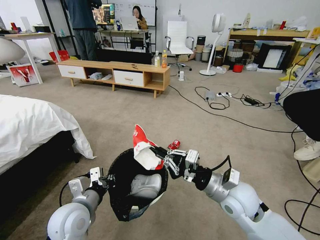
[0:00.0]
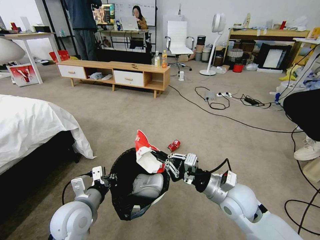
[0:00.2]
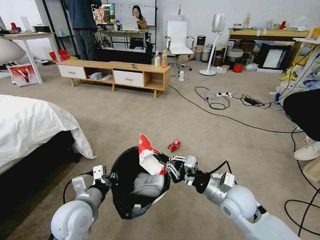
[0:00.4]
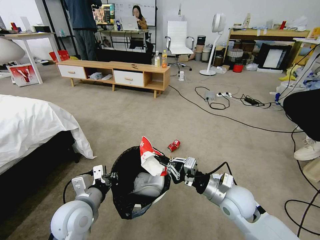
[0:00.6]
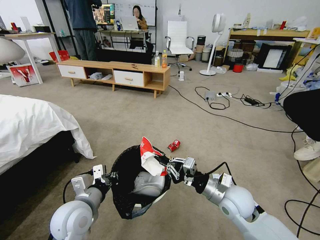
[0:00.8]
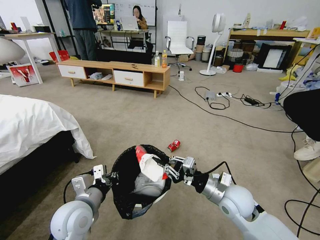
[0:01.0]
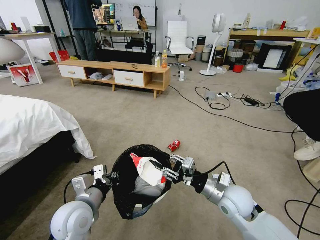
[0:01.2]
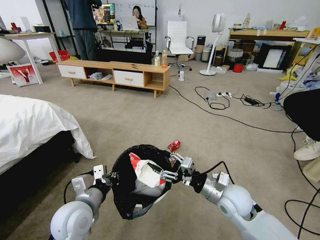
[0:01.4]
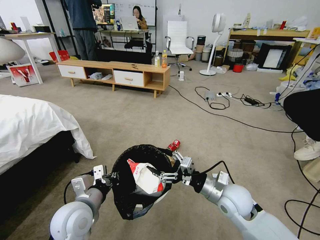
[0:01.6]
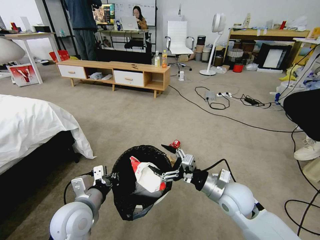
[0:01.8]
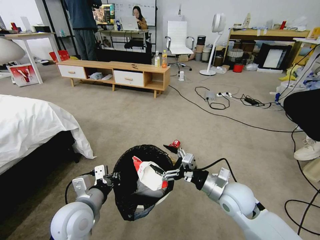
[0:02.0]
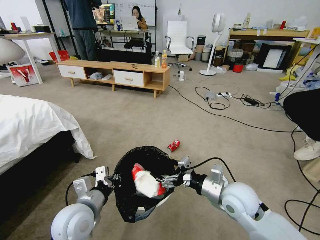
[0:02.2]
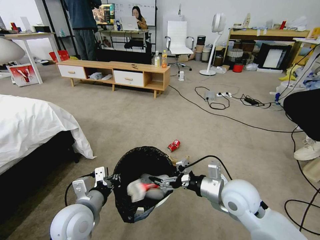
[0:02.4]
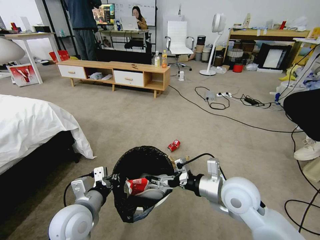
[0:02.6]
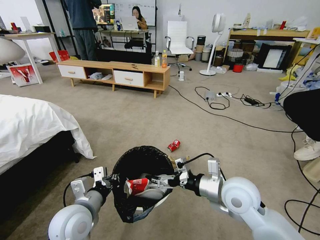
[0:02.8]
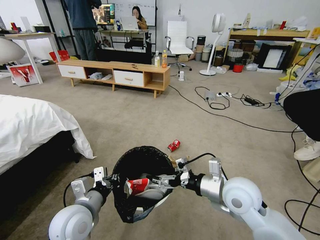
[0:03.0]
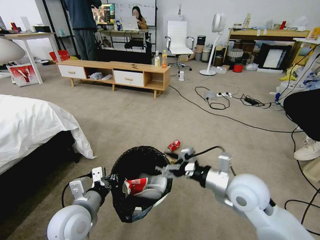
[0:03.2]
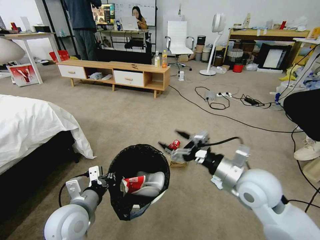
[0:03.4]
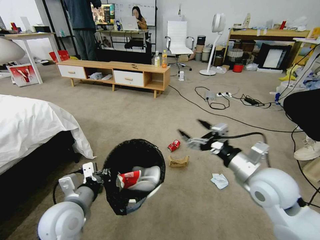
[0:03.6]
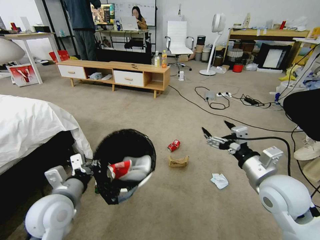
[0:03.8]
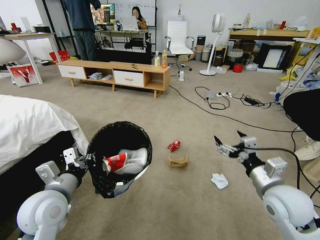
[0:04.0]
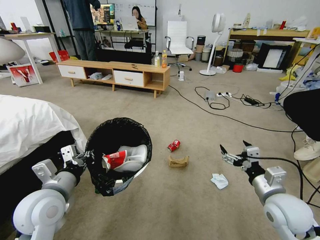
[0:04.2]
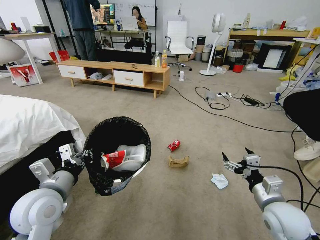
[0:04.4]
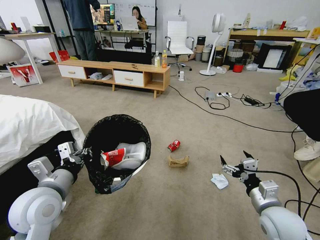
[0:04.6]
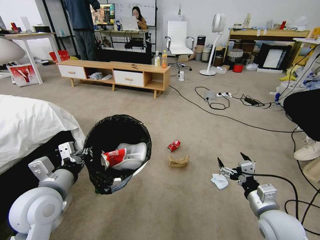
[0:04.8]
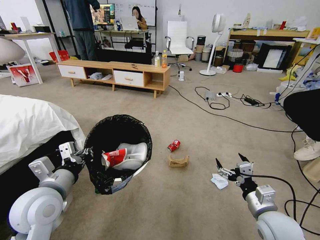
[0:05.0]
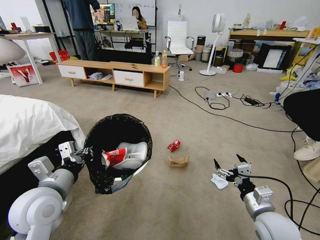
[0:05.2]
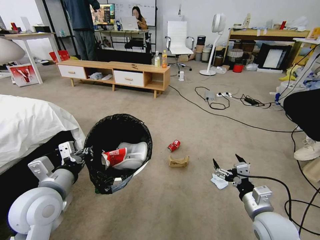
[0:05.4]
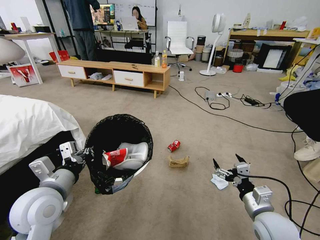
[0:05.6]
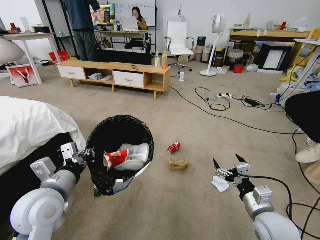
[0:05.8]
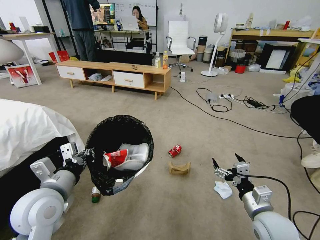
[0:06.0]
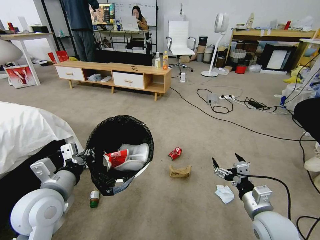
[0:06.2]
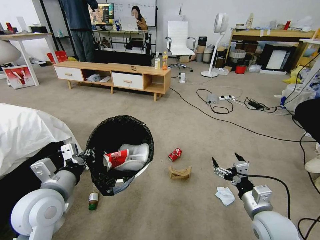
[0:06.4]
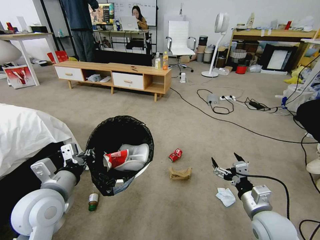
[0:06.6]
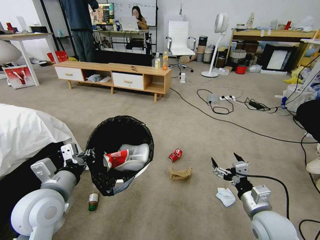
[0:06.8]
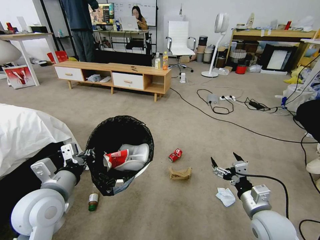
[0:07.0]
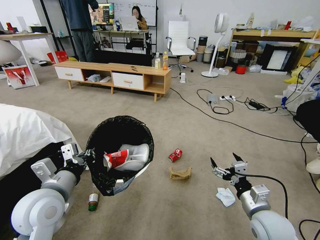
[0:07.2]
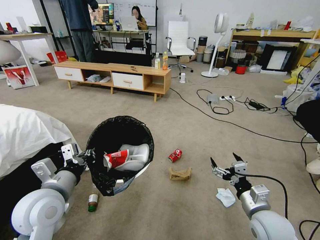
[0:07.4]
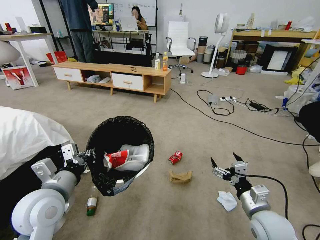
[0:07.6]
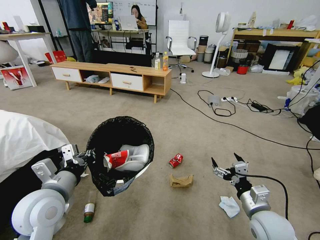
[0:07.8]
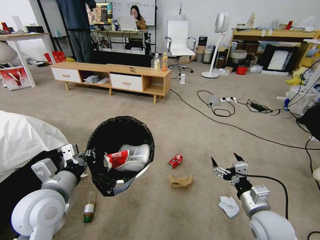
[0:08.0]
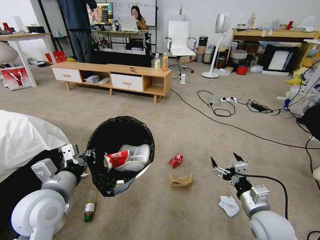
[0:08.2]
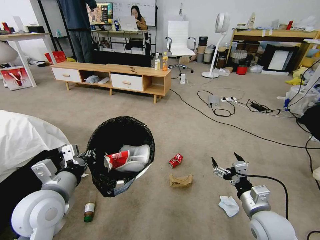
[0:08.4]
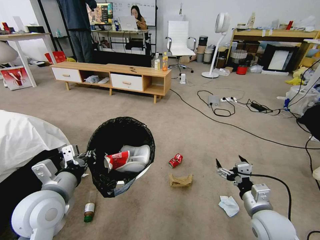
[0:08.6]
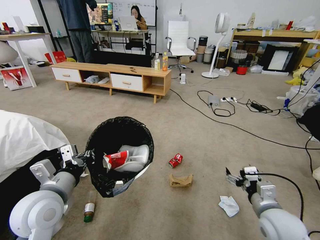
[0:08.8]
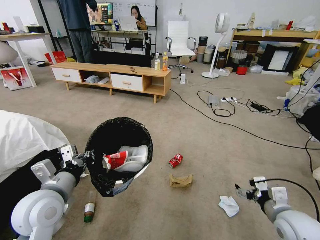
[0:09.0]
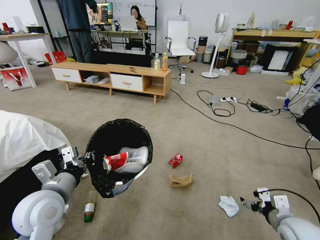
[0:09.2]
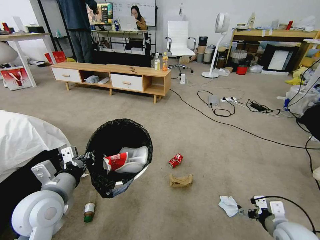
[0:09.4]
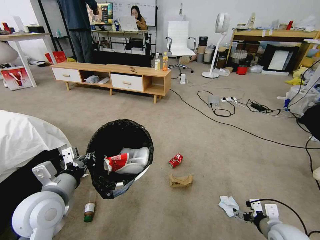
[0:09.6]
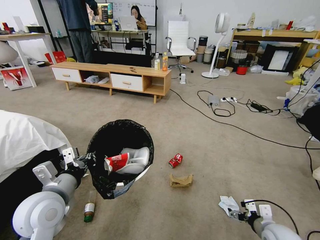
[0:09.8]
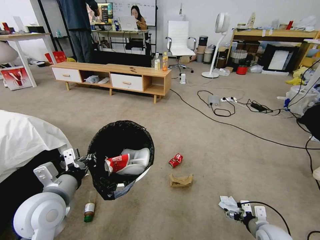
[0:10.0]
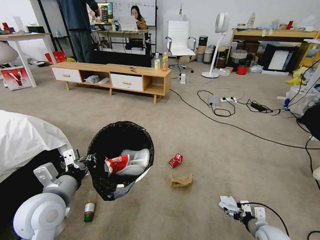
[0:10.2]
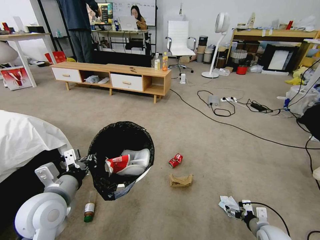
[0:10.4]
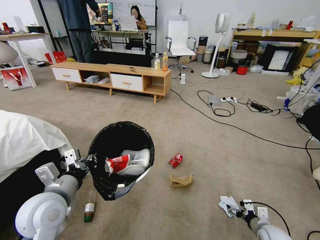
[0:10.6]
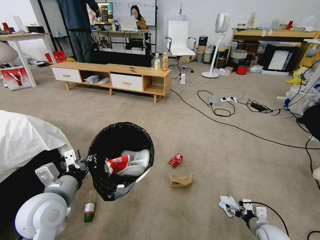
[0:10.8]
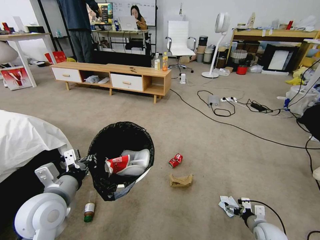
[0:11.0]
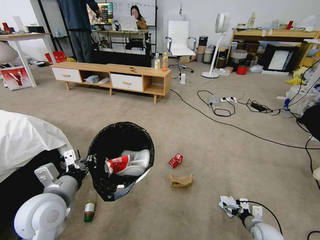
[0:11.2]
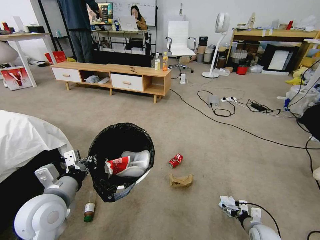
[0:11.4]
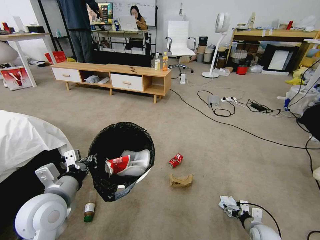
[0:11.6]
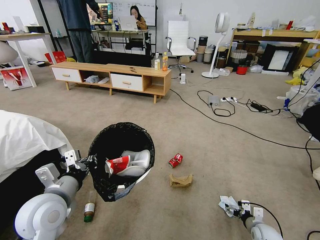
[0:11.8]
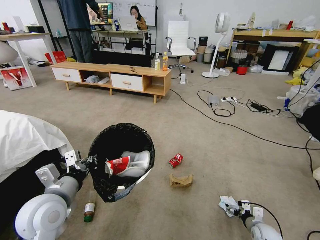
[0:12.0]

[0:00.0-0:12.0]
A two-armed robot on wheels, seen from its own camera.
Task of the whole recording: Pick up the trash bin and place the garbage on the floor into it.
0:00.0 to 0:01.6: The right gripper shifts about 5 cm downward, and opens up.
0:01.6 to 0:03.0: The right gripper goes roughly 5 cm upward.
0:03.0 to 0:04.4: The right gripper shifts approximately 15 cm to the right and downward. Meanwhile the left gripper goes some 10 cm upward and to the left.
0:07.6 to 0:09.0: The right gripper changes place by about 5 cm.
0:09.0 to 0:10.4: The right gripper travels downward by approximately 20 cm.
0:10.4 to 0:12.0: The right gripper travels downward by approximately 5 cm.

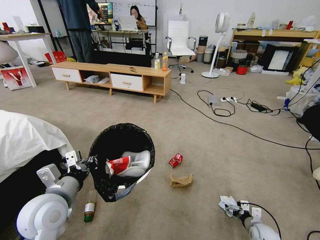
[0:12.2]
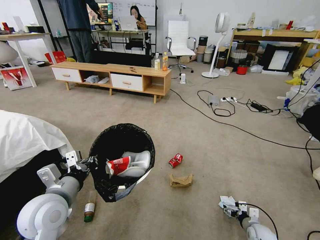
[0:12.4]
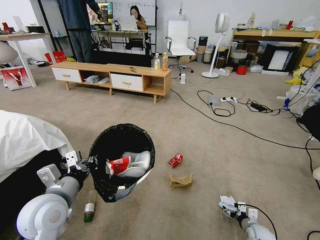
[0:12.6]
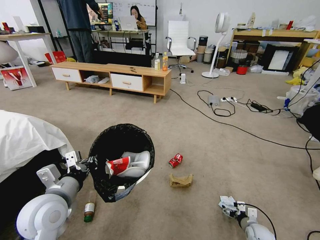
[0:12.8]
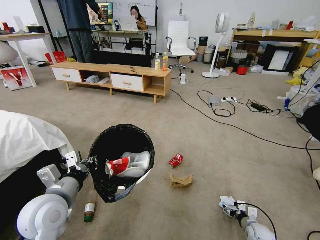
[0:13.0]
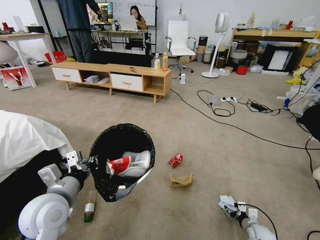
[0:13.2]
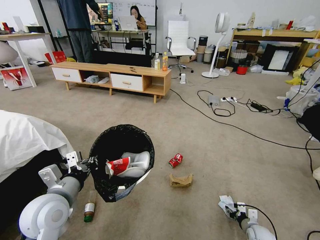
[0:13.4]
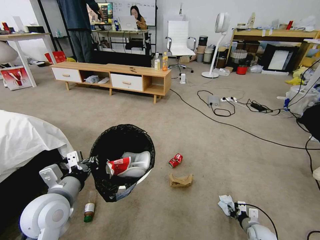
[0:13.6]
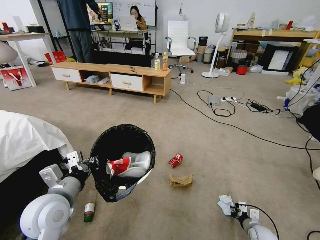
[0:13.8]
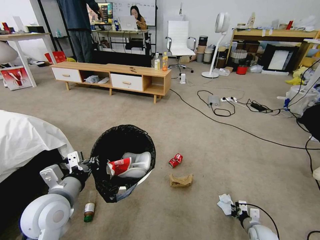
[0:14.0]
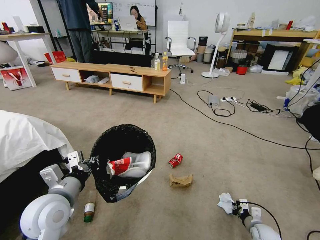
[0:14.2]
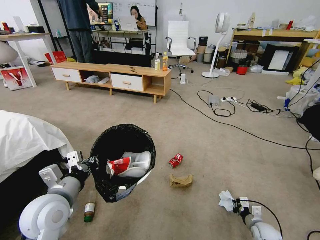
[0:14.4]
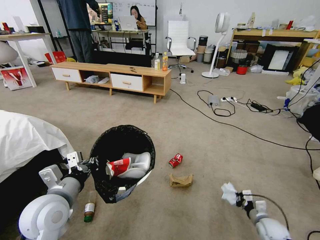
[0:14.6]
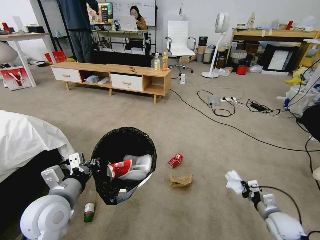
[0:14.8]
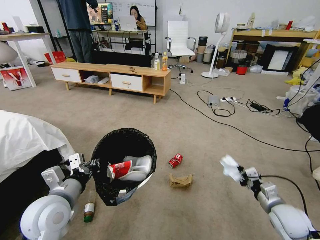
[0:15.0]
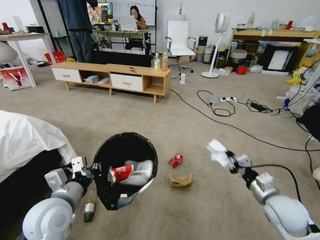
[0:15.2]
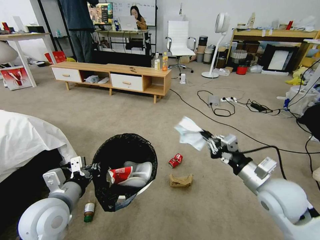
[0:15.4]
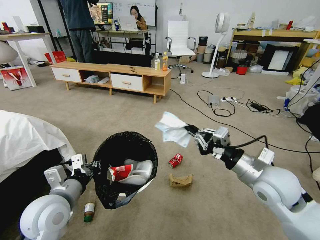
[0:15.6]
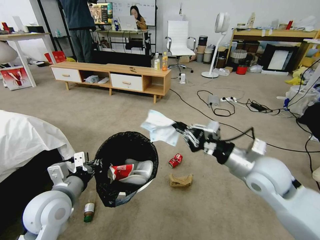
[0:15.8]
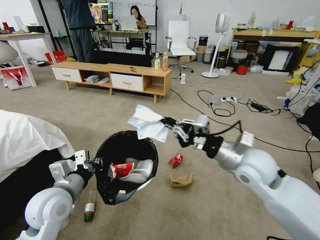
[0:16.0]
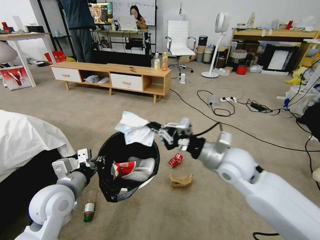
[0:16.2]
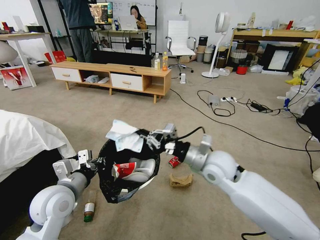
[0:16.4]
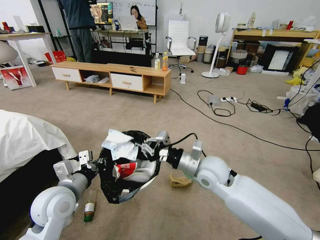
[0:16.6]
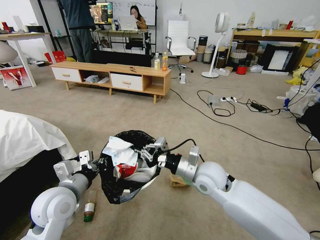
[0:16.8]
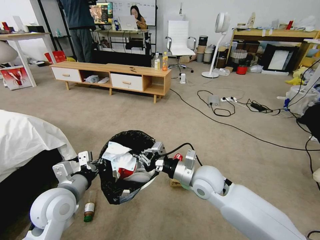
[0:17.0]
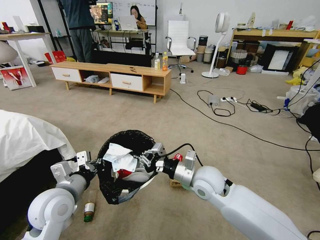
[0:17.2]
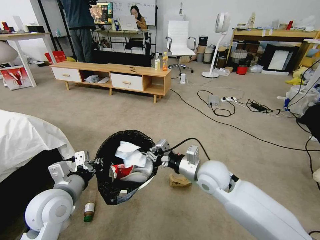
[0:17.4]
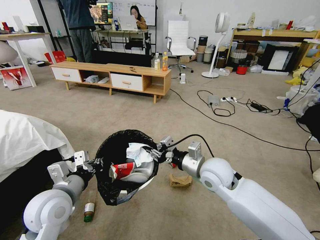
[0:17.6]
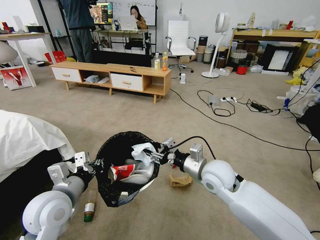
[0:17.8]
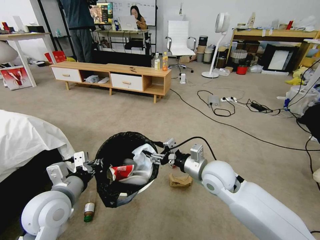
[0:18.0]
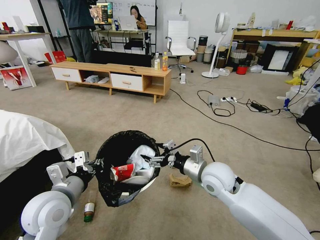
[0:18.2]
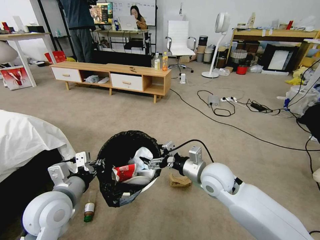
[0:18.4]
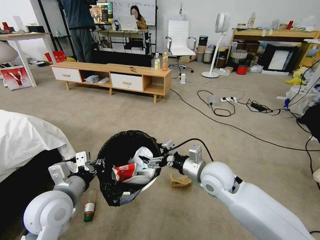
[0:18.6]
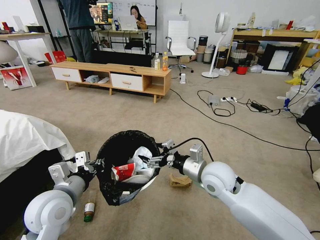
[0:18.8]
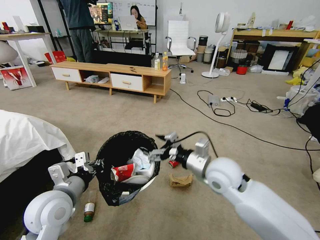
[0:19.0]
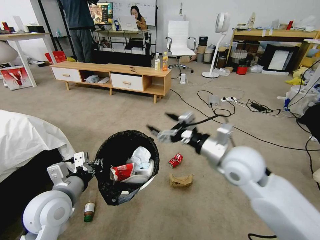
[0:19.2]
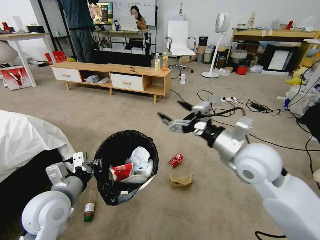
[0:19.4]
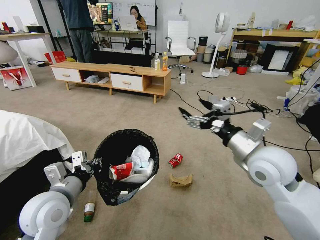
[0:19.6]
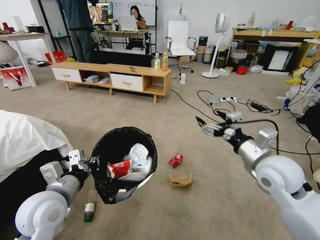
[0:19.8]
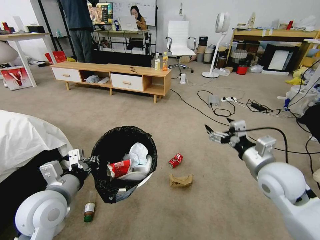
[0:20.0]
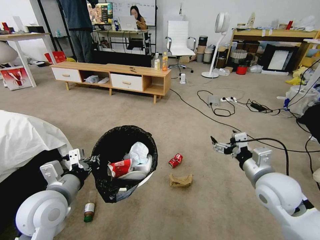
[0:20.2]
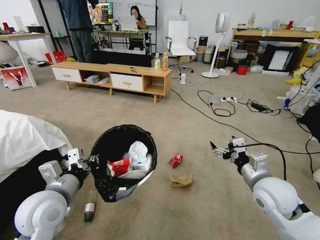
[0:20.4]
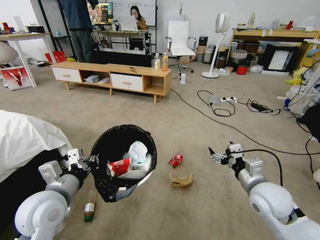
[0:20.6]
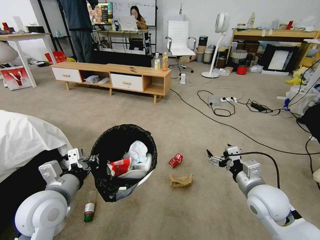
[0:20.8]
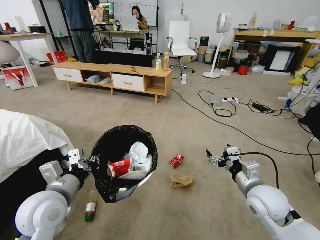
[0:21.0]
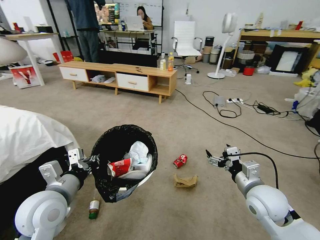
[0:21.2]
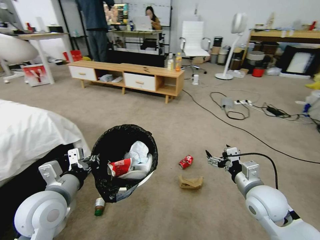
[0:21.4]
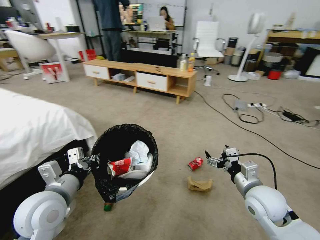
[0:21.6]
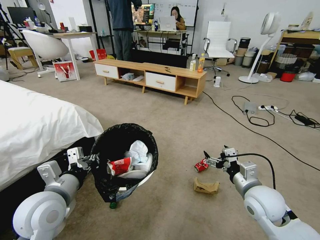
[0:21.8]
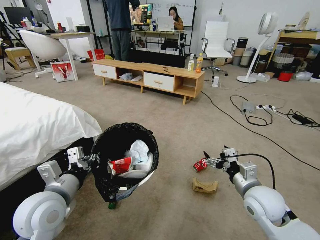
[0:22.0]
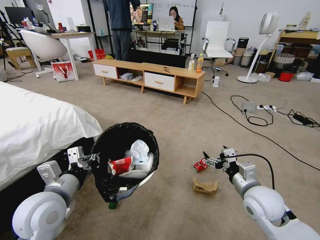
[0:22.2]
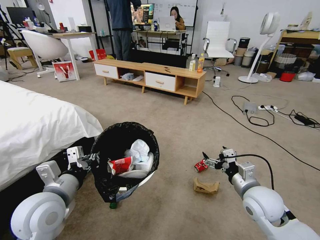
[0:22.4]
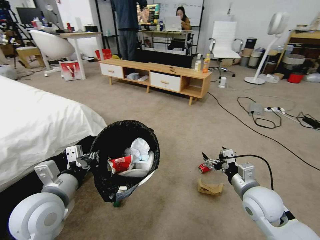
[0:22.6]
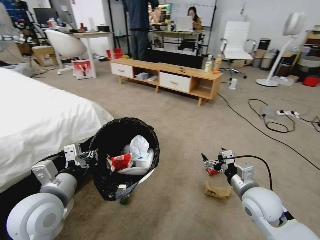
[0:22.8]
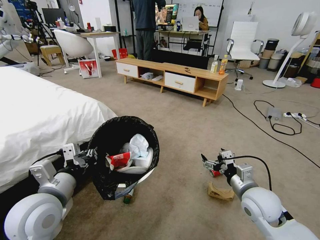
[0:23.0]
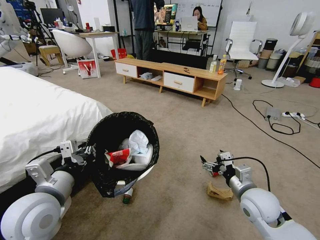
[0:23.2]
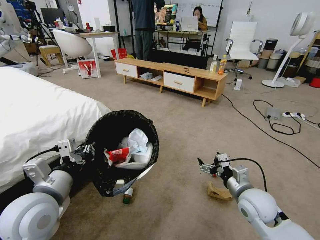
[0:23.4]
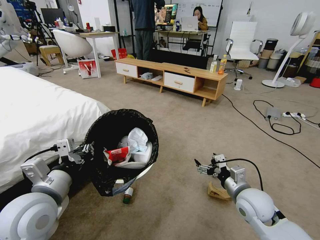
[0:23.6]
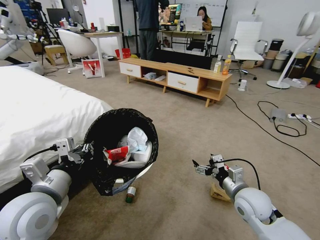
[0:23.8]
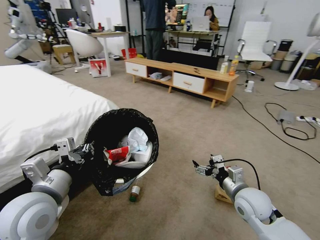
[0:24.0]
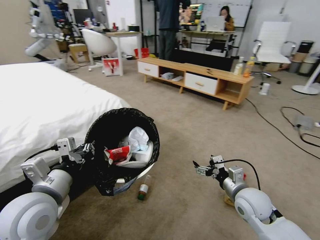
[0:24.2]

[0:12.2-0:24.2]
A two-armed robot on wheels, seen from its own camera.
Task of the whole recording: Pick up the trash bin and place the garbage on the floor into it.
0:12.2 to 0:13.8: The right gripper closes.
0:13.8 to 0:15.2: The right gripper heads upward, covering about 30 cm.
0:15.2 to 0:16.6: The right gripper moves to the left and forward, approximately 20 cm.
0:16.6 to 0:18.2: The right gripper opens up.
0:18.2 to 0:19.8: The right gripper heads to the right and upward, covering about 15 cm.
0:19.8 to 0:21.2: The right gripper travels downward by about 10 cm.
